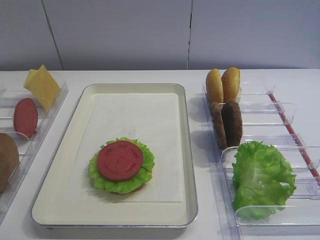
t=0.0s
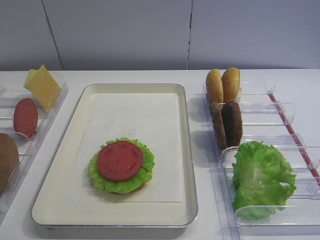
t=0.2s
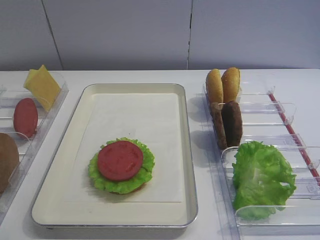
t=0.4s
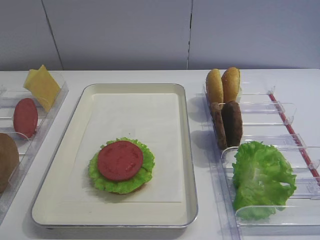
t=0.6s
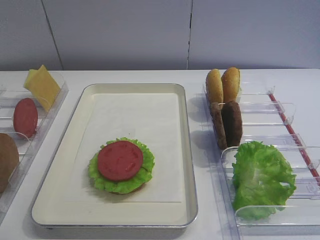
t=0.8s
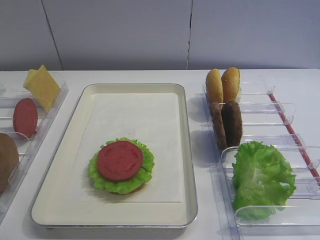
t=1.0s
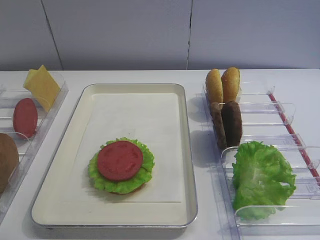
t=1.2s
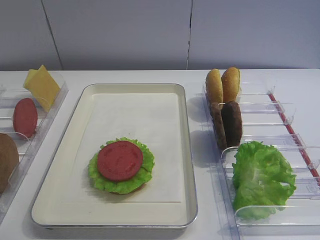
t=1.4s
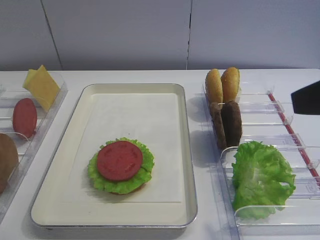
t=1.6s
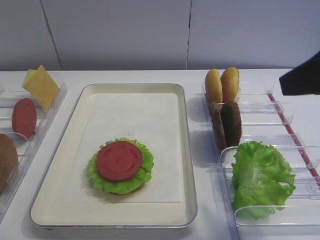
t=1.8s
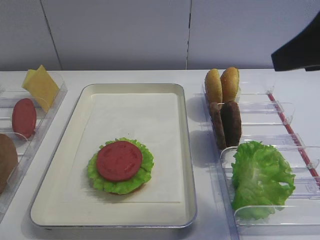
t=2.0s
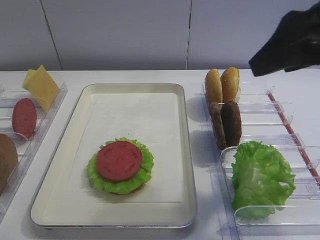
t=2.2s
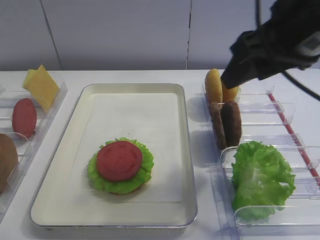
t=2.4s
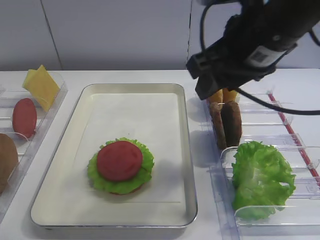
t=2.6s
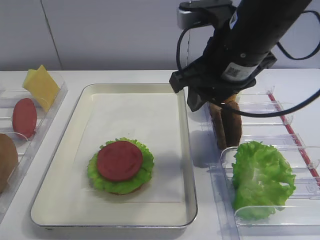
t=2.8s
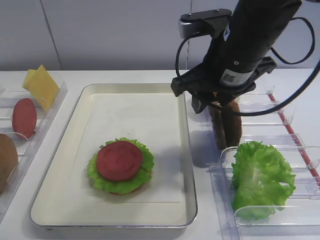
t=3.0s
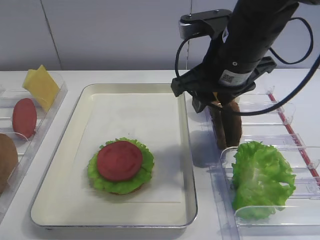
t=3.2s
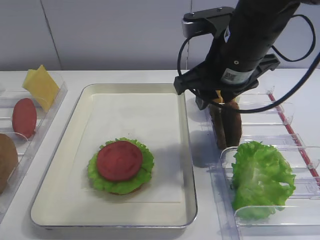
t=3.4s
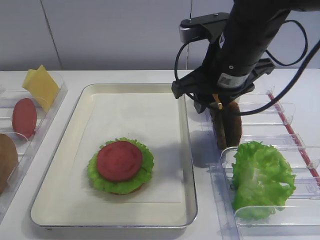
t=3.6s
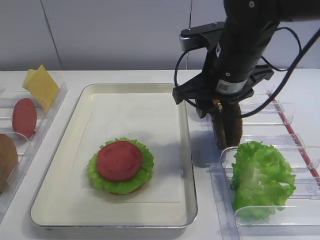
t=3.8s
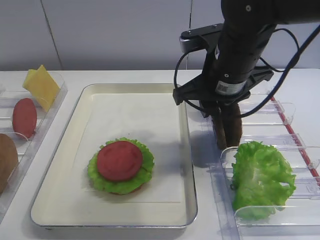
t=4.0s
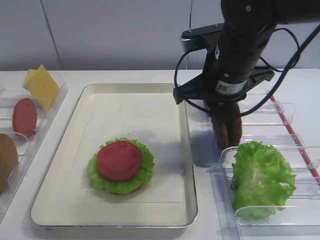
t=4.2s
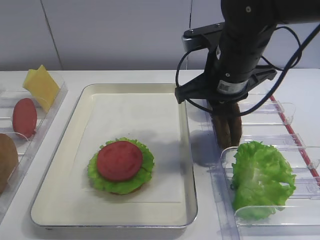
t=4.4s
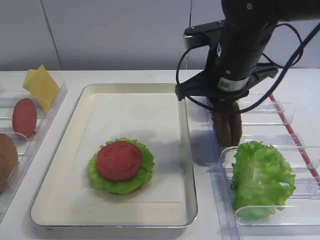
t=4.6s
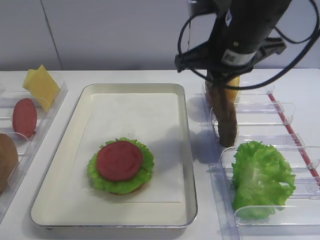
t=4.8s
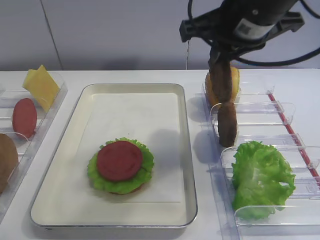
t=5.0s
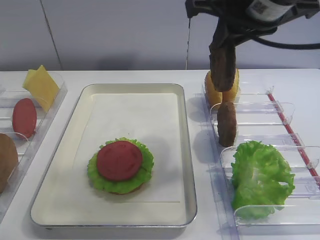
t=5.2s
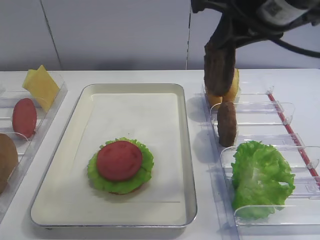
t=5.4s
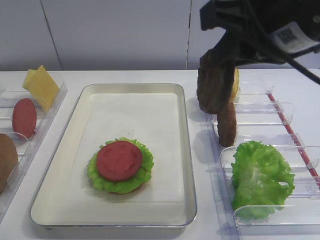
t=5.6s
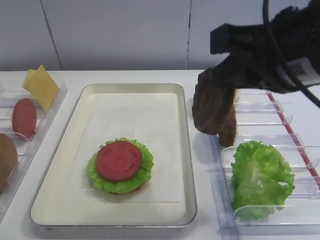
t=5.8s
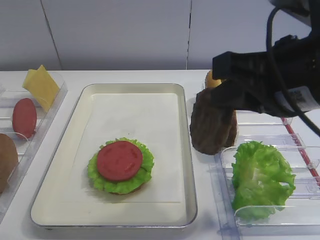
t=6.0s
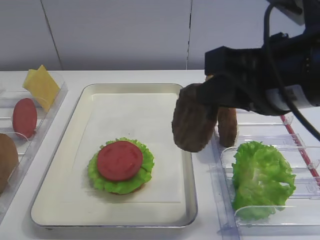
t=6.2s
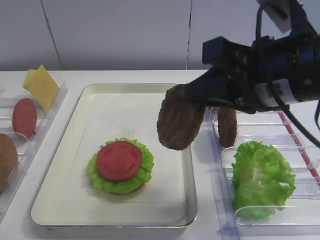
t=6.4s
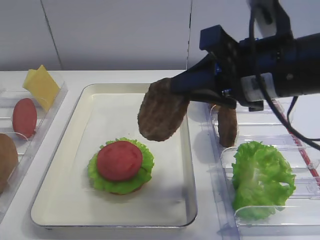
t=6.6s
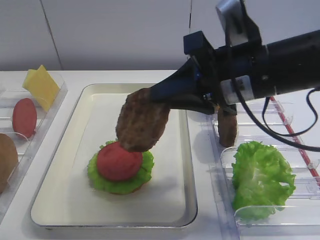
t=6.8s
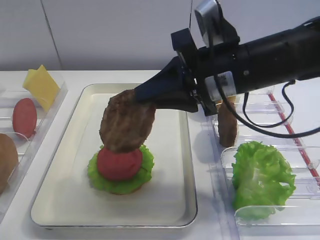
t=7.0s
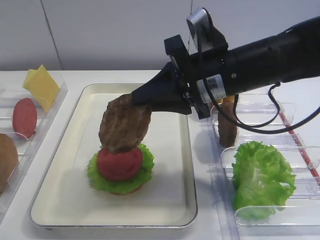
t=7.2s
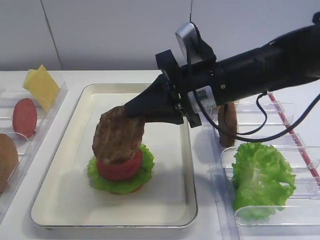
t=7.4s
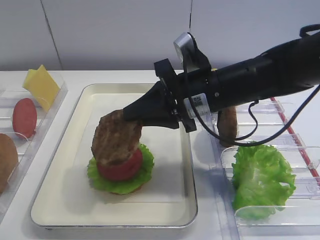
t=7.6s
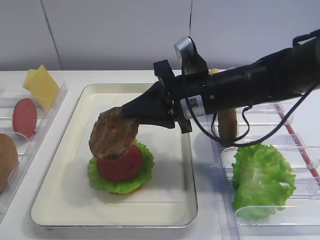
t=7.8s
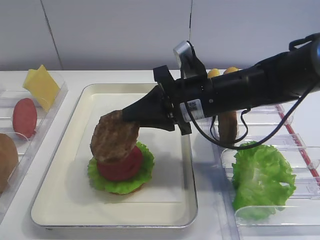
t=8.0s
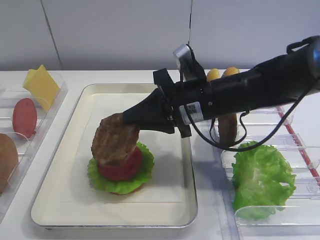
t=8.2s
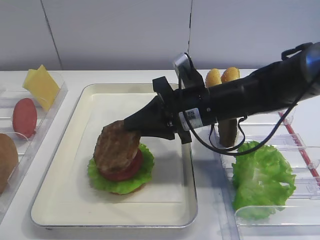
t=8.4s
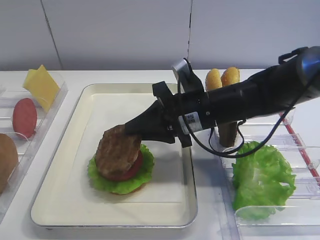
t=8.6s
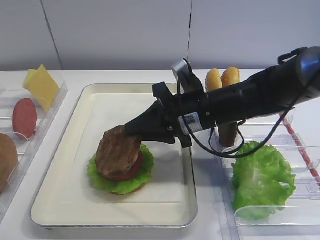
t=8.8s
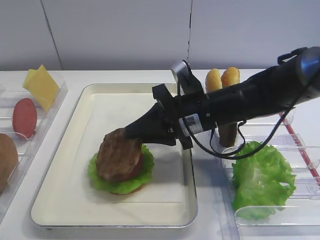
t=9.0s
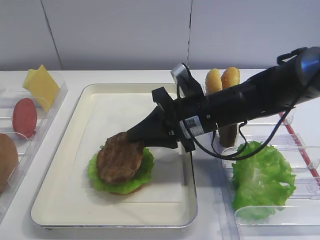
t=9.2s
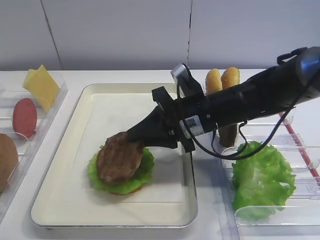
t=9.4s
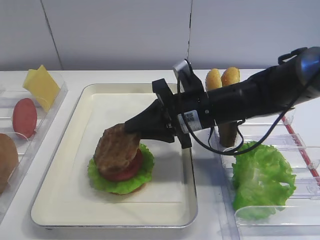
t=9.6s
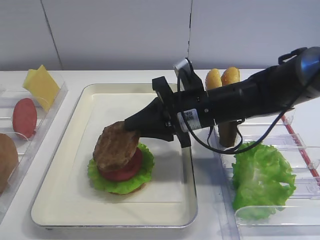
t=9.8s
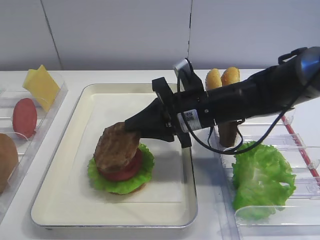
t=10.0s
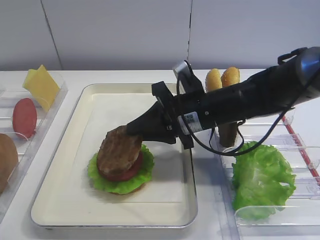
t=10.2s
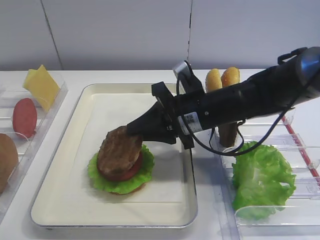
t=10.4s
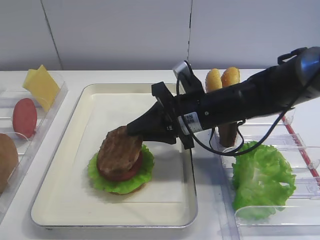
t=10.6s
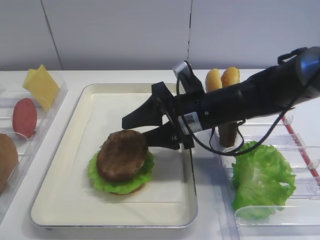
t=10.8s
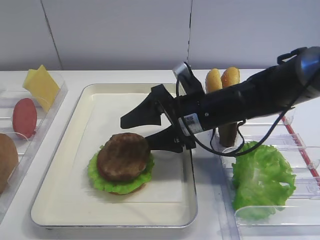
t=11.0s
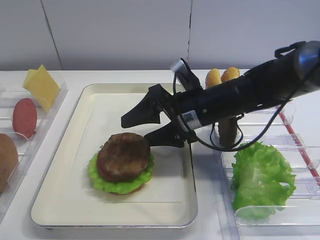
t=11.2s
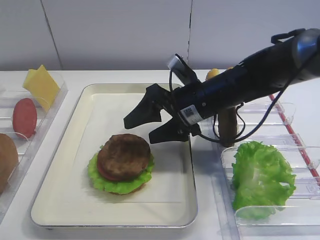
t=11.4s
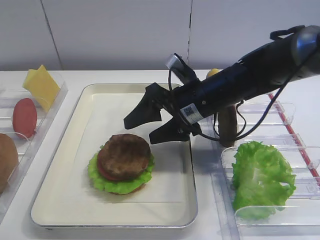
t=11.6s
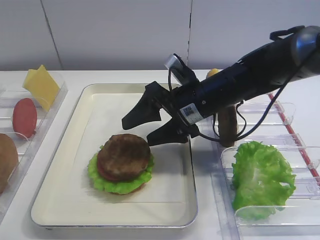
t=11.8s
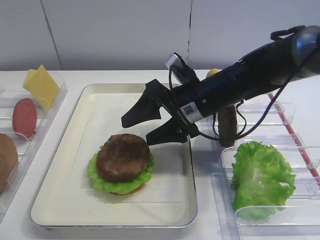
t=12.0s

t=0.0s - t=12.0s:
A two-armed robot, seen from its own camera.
Step, t=0.0s - t=5.0s: Pick up the cutlet with the right gripper.
t=1.6s - t=3.0s: The right gripper moves forward and to the left, approximately 20 cm.
t=3.0s - t=4.4s: The right gripper closes up.
t=4.4s - t=6.0s: The right gripper shifts about 15 cm backward and upward.
t=6.0s - t=7.6s: The right gripper heads forward, downward and to the left, covering roughly 15 cm.
t=7.6s - t=9.0s: The right gripper moves approximately 5 cm.
t=9.0s - t=10.4s: Neither gripper changes place.
t=10.4s - t=12.0s: The right gripper opens.

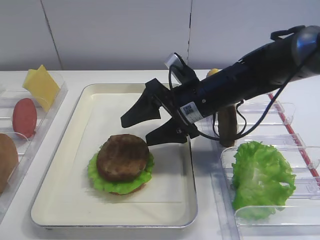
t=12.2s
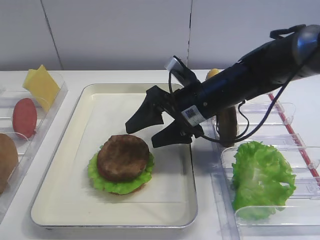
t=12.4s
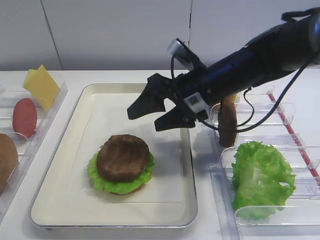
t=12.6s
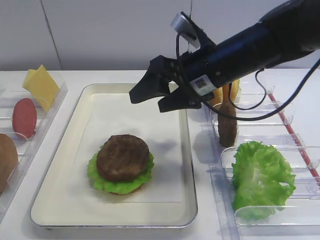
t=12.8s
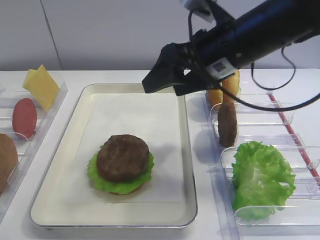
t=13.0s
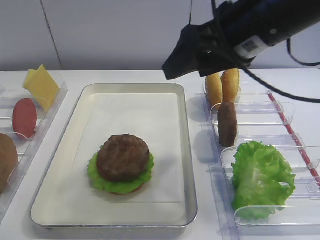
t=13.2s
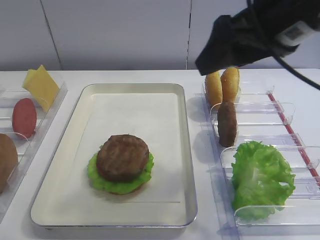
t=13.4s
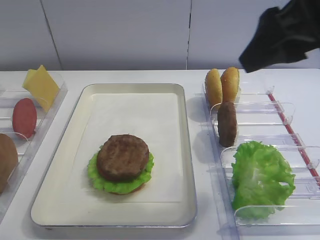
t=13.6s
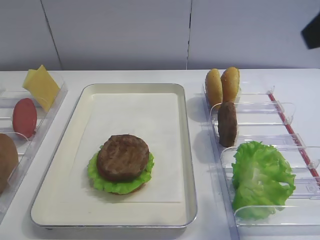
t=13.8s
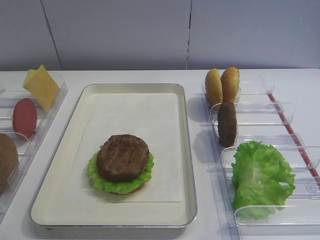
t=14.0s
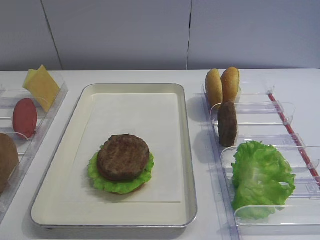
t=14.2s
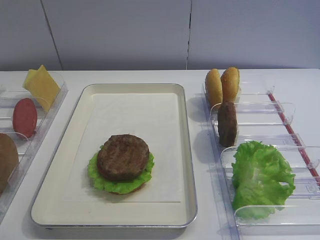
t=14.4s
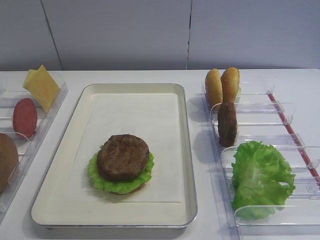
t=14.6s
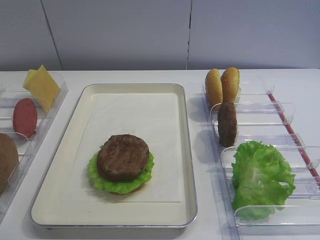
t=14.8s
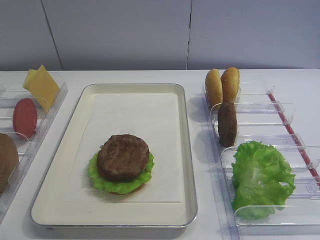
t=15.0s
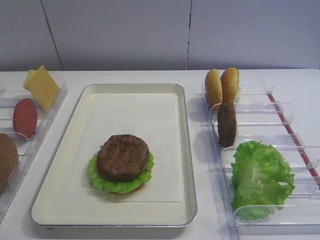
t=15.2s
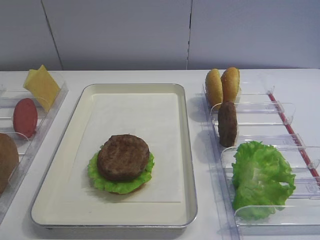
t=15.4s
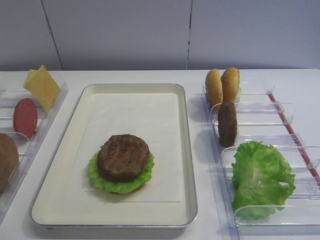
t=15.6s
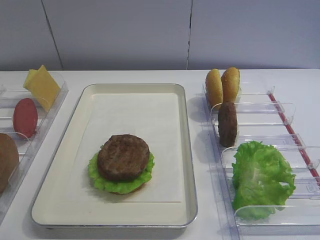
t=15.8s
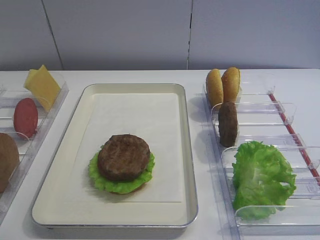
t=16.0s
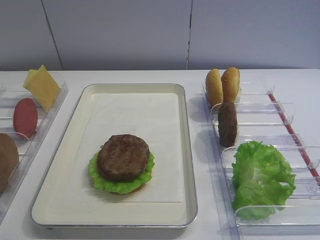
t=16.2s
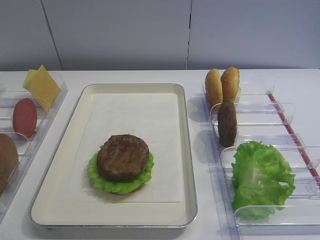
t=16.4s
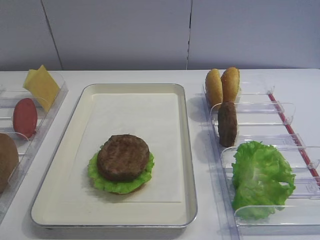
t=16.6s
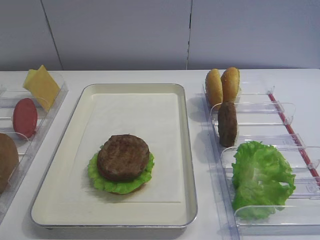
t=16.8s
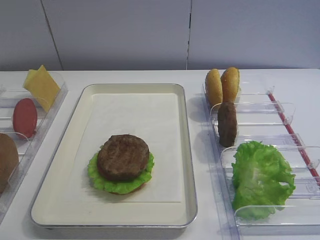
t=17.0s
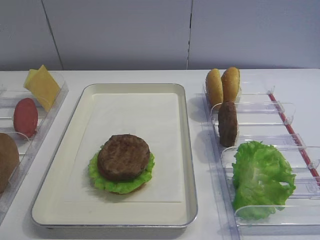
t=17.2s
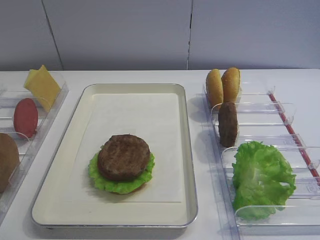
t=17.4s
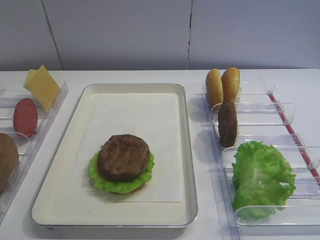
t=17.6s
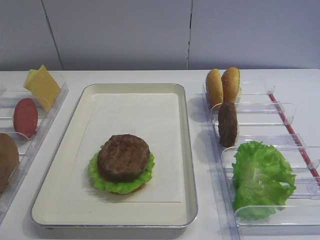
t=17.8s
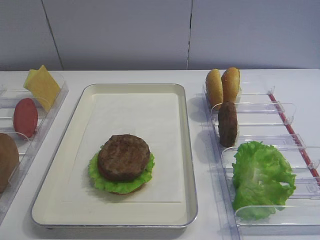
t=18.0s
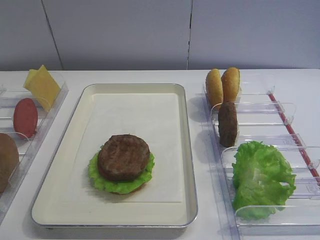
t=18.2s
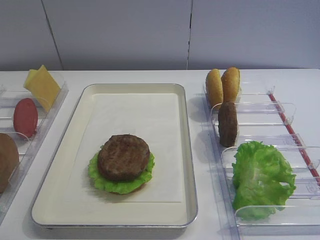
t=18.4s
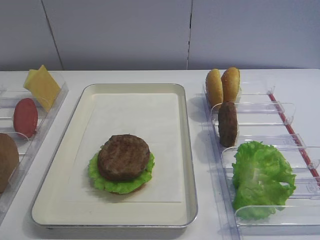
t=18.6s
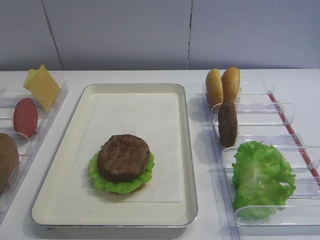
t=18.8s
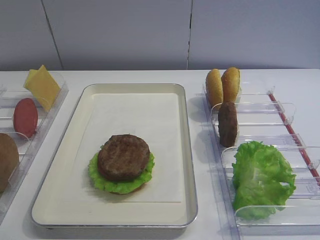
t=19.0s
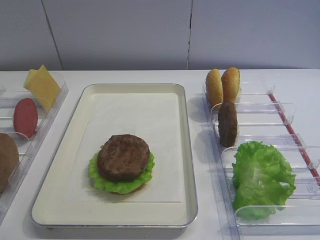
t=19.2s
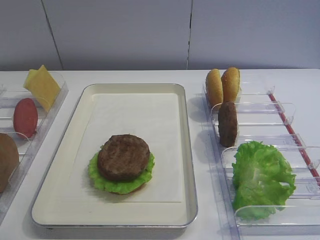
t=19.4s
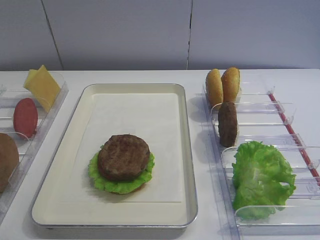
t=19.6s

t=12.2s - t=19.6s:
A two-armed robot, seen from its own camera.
t=12.2s - t=13.6s: The right gripper goes some 25 cm upward, backward and to the right.
t=13.6s - t=15.2s: The right gripper travels backward by approximately 25 cm.
t=16.6s - t=19.6s: Neither gripper changes place.

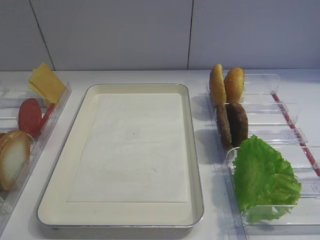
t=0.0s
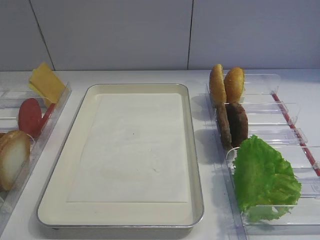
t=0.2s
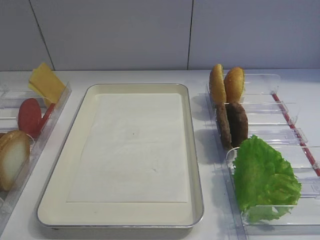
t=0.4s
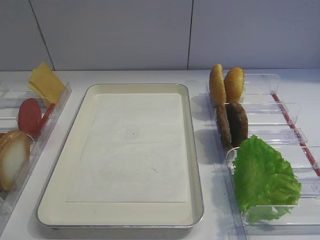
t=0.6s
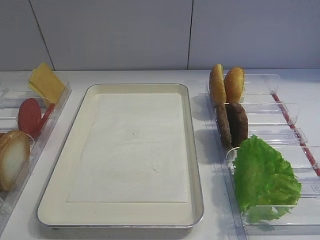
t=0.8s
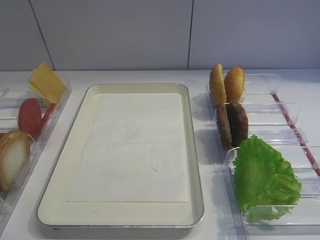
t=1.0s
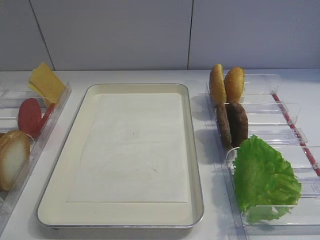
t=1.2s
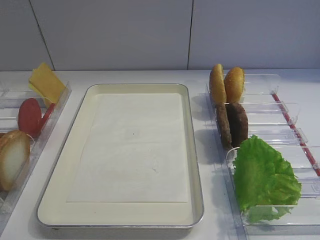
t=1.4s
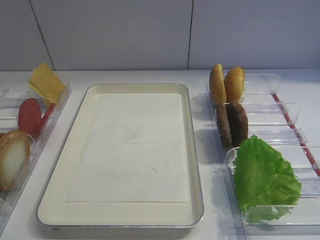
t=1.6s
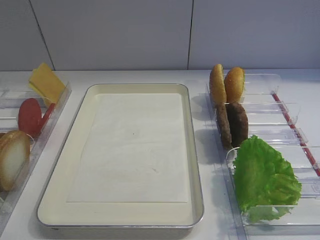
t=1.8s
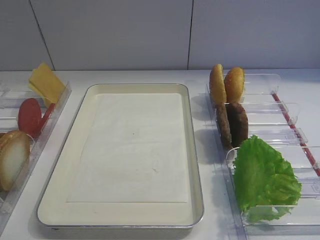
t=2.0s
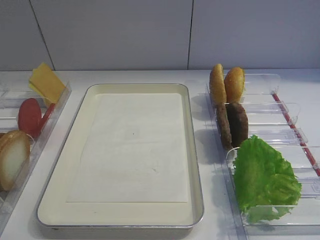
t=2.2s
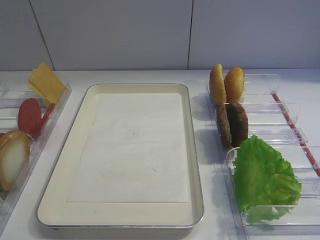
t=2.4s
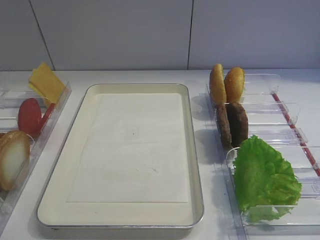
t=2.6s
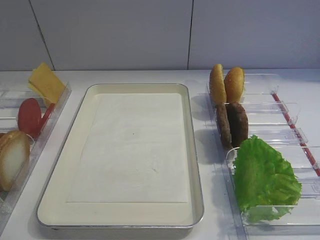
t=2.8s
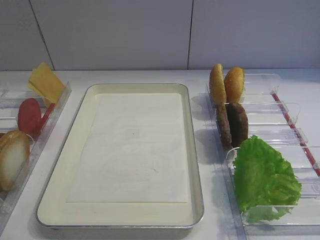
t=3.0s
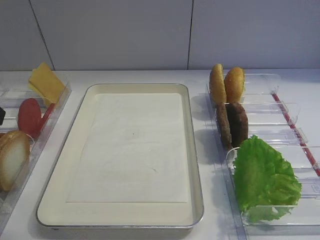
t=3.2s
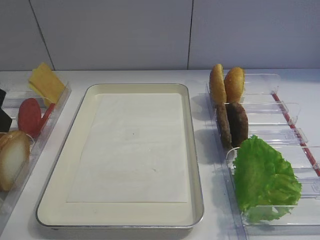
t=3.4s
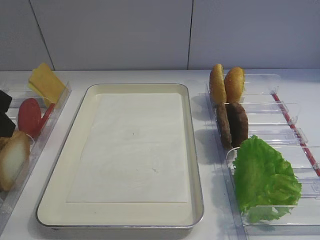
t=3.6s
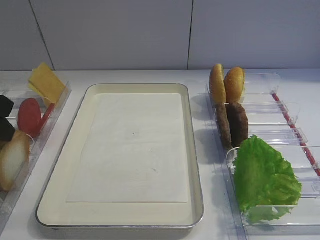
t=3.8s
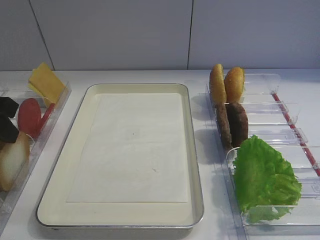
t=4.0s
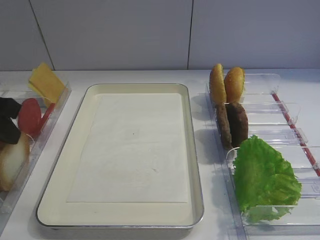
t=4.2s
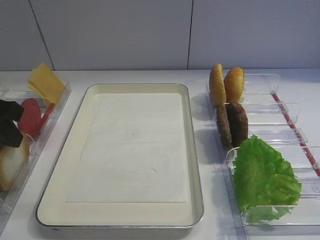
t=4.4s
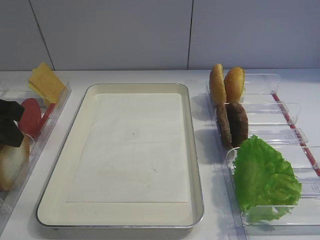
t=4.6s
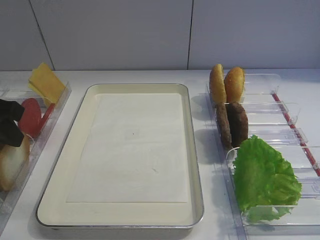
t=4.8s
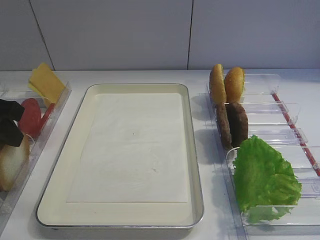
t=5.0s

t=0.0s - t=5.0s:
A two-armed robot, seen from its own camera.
t=3.4s - t=5.0s: There are only small adjustments of the grippers.
